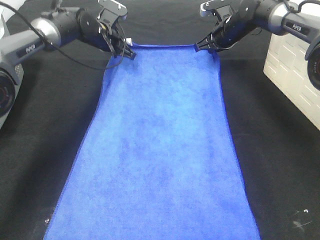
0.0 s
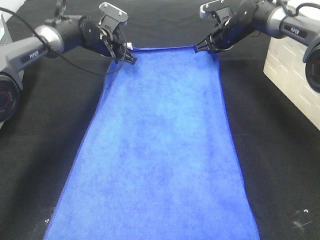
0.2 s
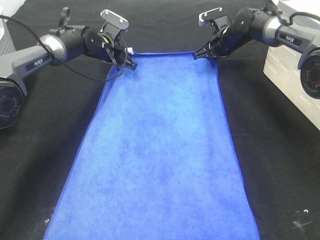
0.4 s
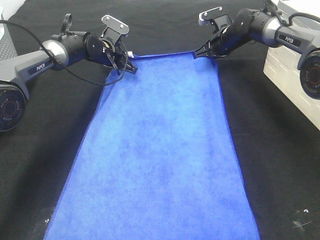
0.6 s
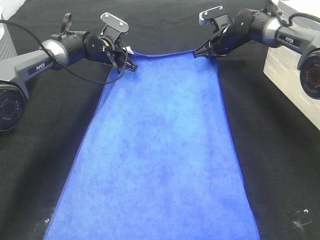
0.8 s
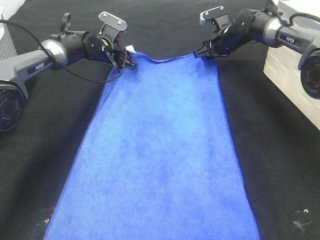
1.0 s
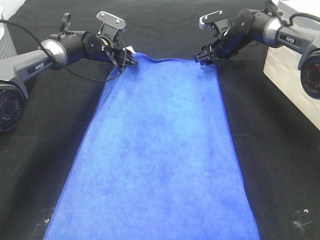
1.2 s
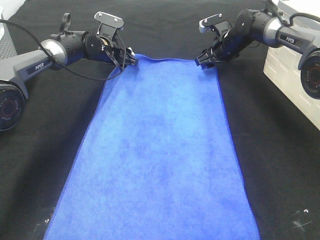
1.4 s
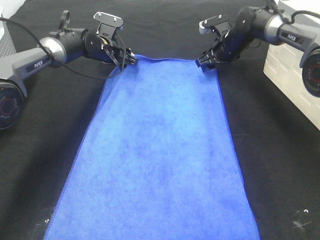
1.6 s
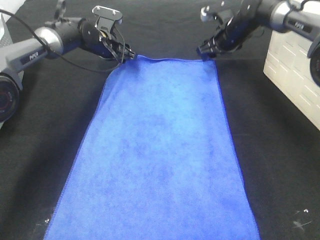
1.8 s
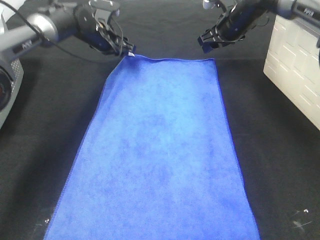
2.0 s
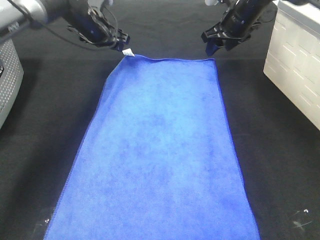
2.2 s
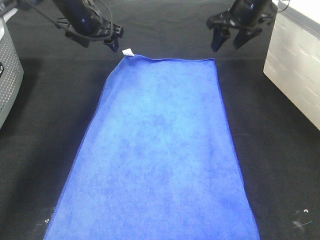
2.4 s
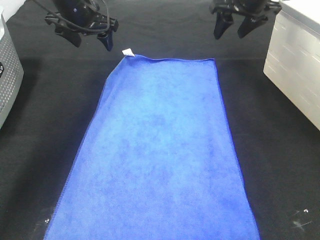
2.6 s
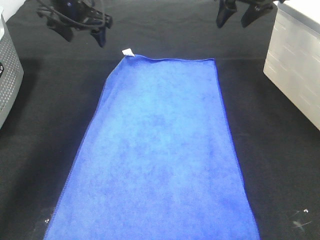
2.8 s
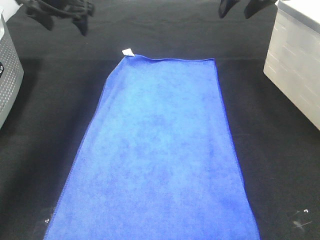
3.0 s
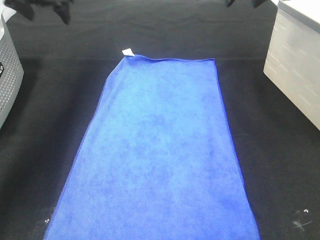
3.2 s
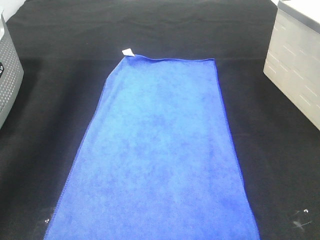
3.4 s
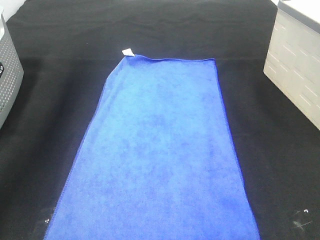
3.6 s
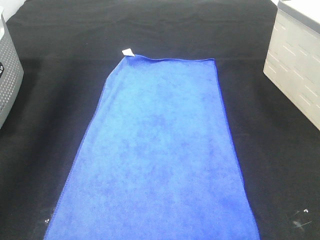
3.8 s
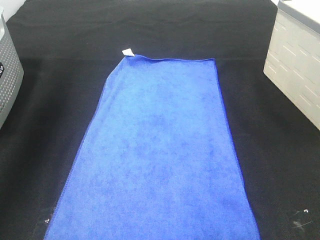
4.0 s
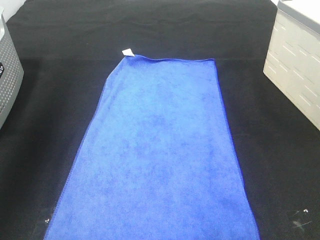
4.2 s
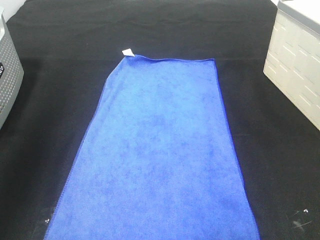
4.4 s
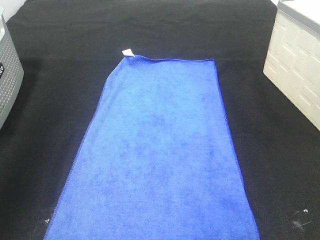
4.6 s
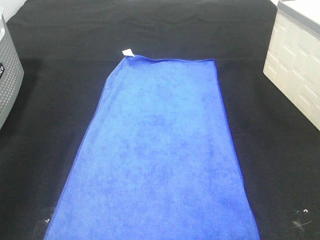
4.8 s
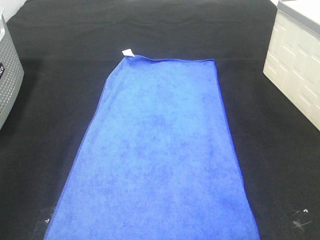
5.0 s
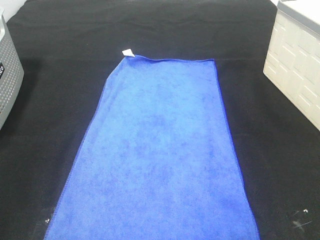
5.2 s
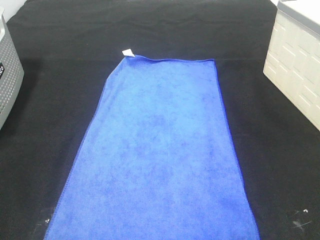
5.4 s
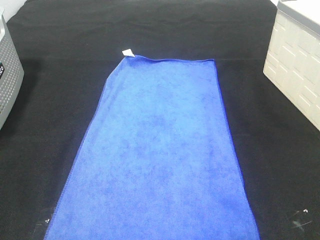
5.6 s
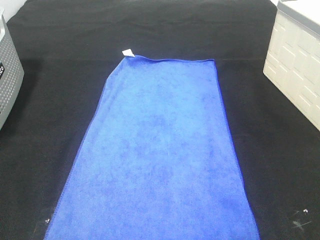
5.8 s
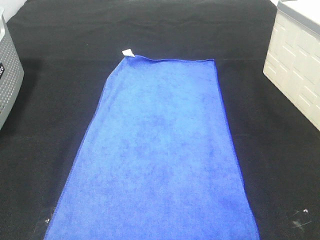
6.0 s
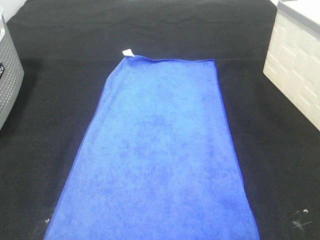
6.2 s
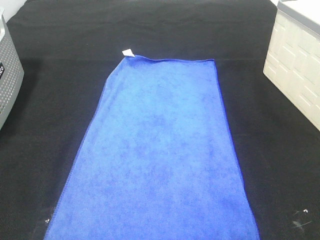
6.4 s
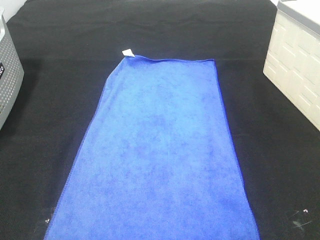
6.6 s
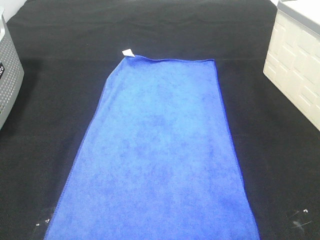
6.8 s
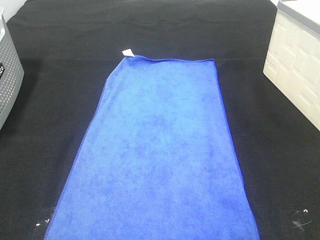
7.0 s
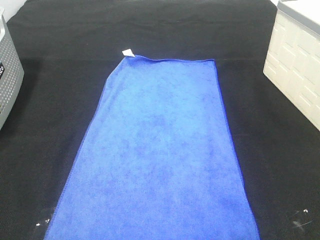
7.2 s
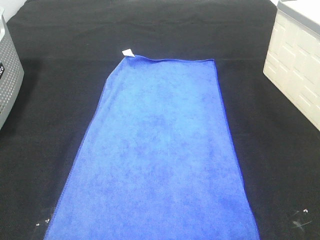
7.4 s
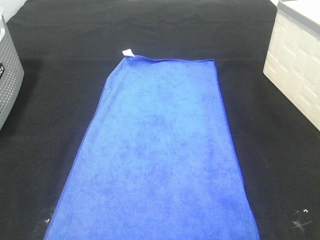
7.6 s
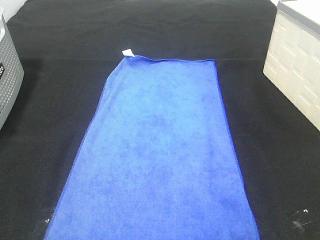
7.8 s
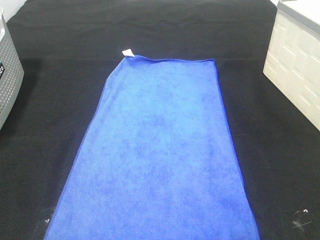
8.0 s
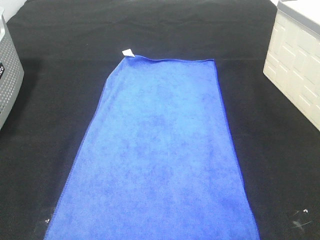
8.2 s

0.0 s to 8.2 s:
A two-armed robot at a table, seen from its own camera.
Task of the whole recording: Remove the towel and place it.
0.0 to 1.6 s: The right gripper opens, while the left gripper opens up.
1.6 to 3.2 s: The left gripper goes some 25 cm upward and to the left; the right gripper goes approximately 25 cm upward and backward.
3.2 to 5.0 s: Both grippers travel together backward, about 50 cm.
6.6 to 8.2 s: Both grippers stay about where they are.

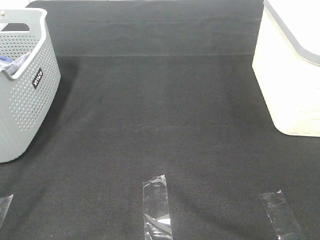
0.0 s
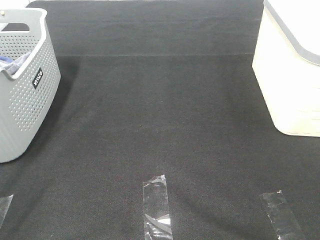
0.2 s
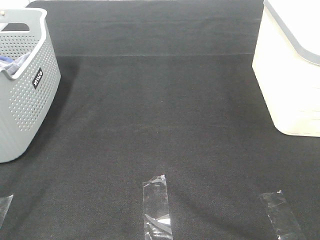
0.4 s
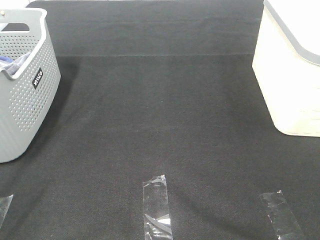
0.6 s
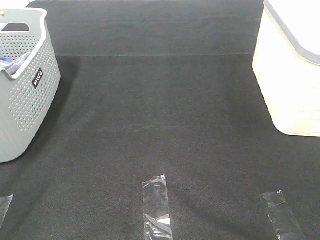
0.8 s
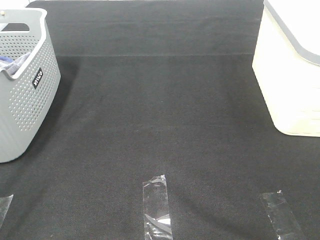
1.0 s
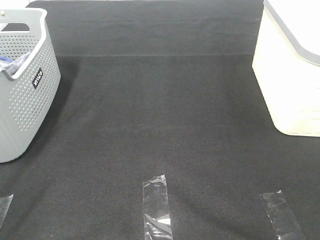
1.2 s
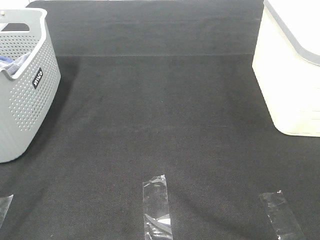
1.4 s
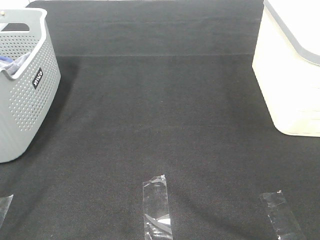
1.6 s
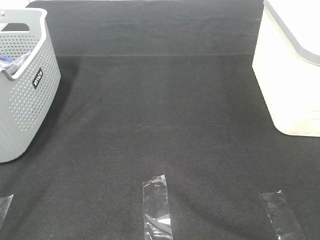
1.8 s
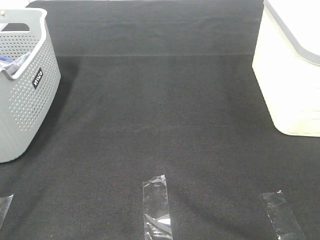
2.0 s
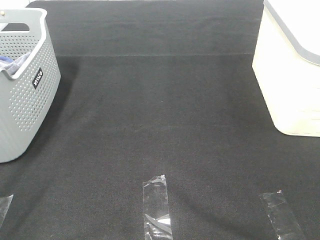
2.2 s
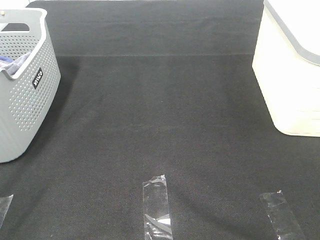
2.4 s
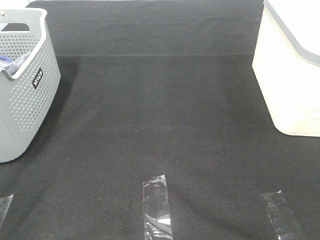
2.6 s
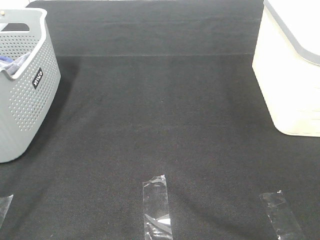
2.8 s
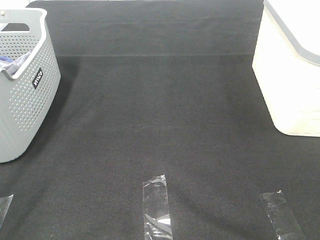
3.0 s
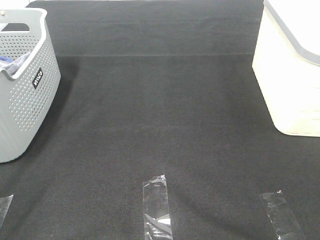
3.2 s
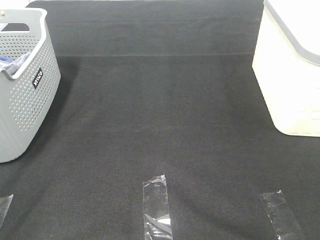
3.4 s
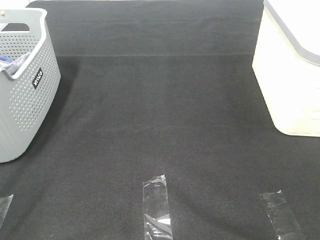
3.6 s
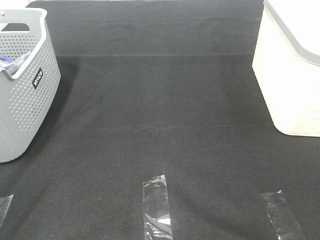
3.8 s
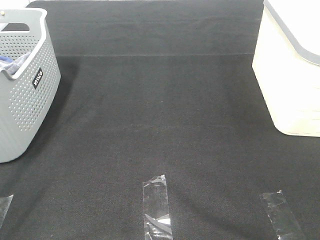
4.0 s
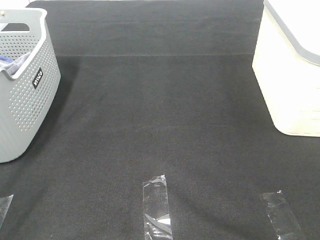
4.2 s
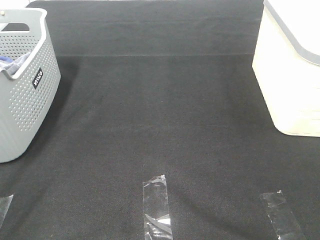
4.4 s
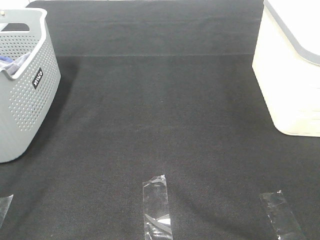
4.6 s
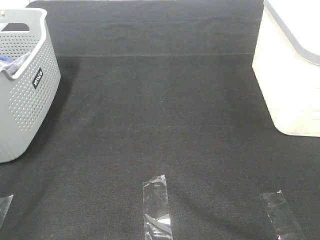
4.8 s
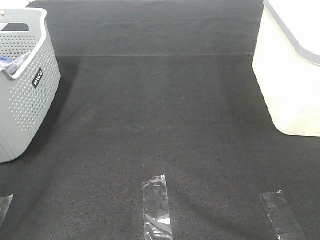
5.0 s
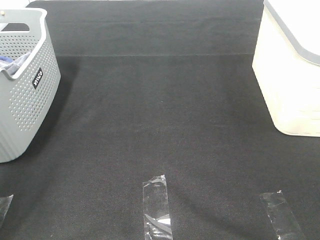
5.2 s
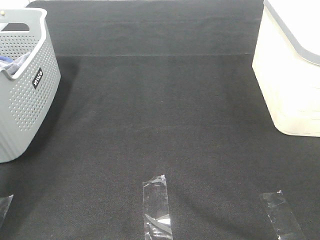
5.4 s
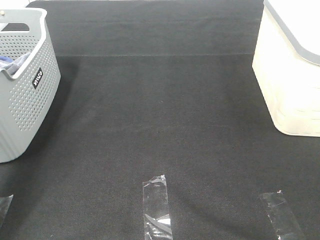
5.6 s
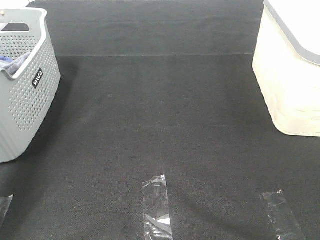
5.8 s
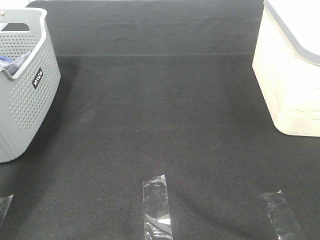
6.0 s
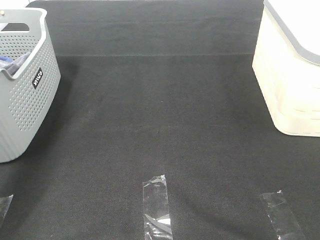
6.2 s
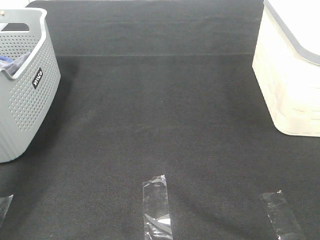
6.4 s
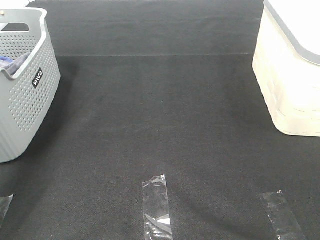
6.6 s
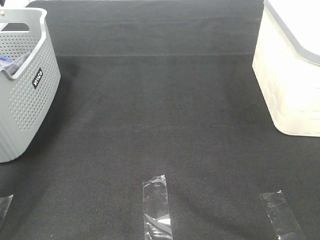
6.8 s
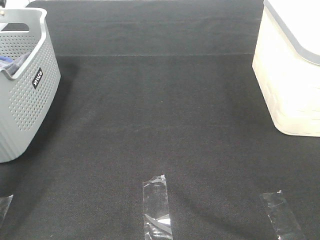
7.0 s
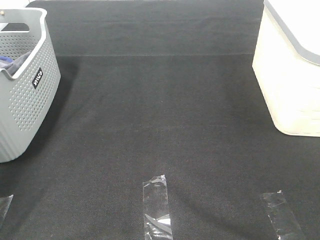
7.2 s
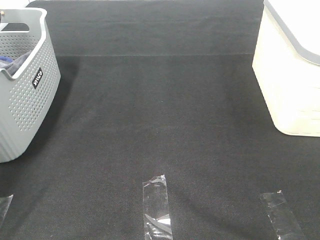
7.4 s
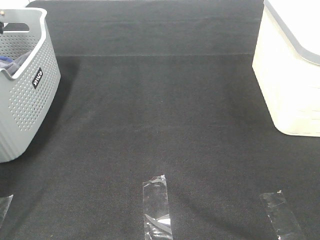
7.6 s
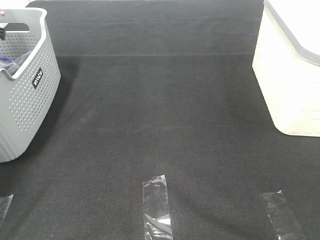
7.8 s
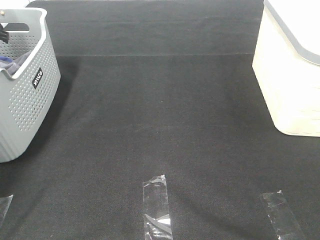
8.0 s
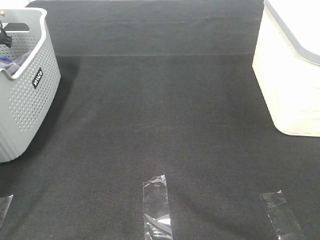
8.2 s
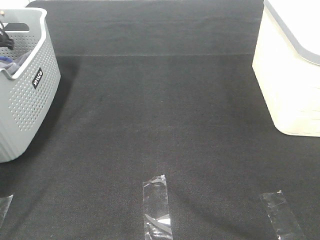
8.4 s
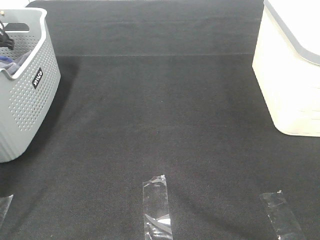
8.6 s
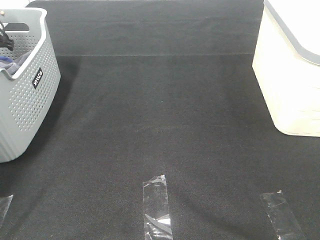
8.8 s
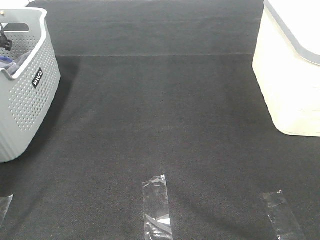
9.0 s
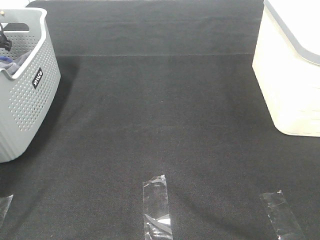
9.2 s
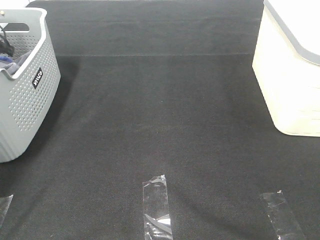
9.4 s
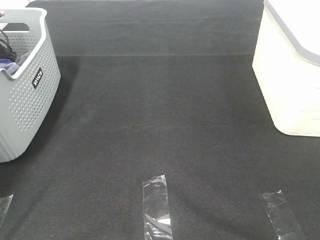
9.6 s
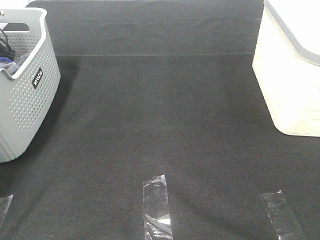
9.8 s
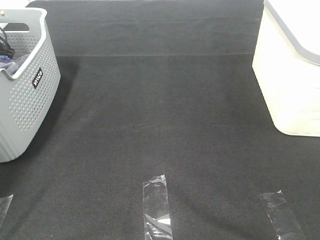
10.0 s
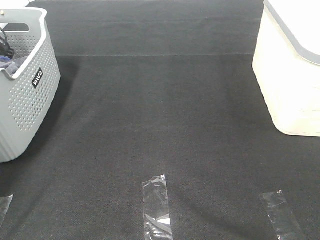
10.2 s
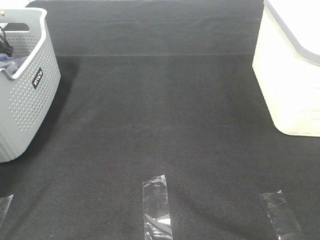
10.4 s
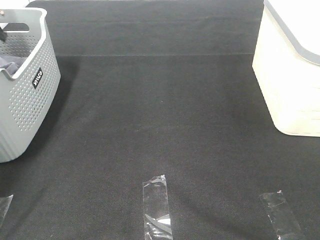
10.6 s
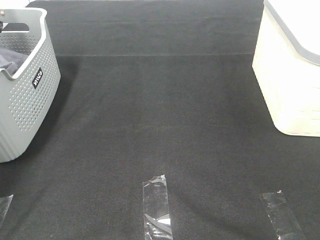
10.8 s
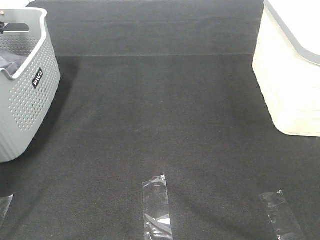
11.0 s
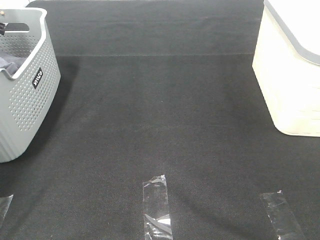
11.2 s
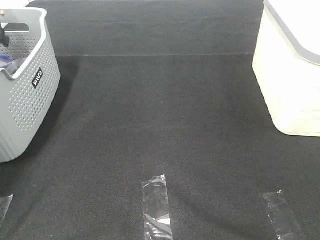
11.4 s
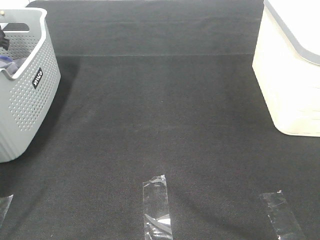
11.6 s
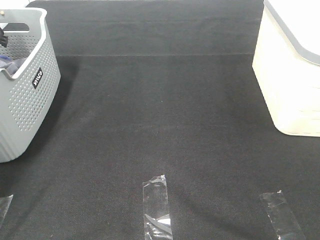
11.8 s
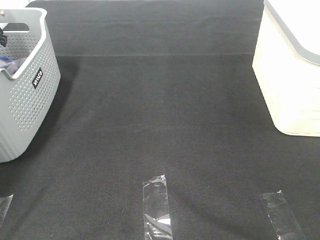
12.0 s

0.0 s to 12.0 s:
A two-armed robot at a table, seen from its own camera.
Task of the whole recording: Remove the towel and place it.
0.0 to 4.4 s: Both grippers stay about where they are.
4.4 to 6.0 s: The left gripper heads forward, covering about 35 cm.
6.0 to 7.6 s: The left gripper goes approximately 20 cm forward, downward and to the left.

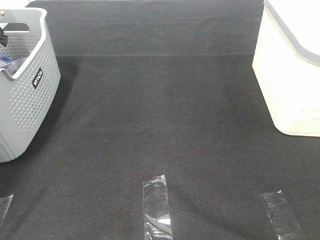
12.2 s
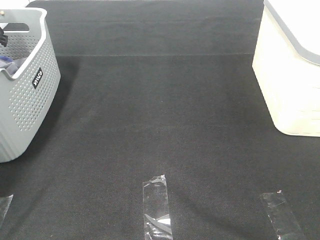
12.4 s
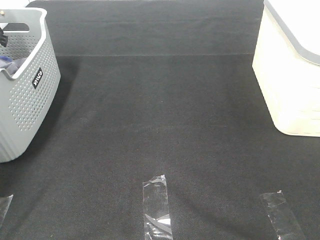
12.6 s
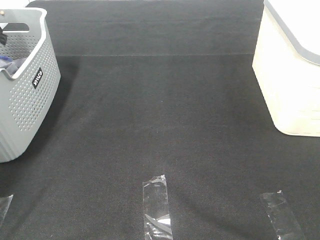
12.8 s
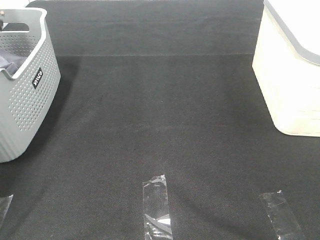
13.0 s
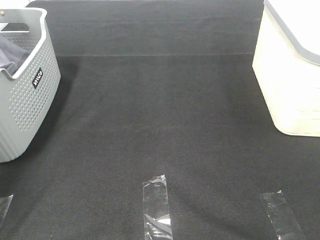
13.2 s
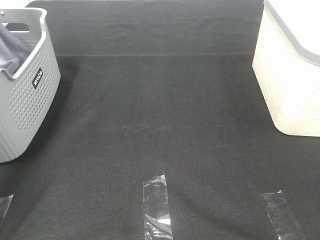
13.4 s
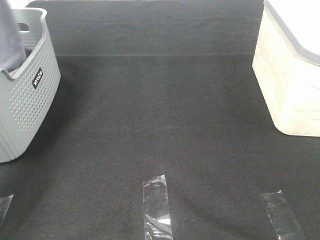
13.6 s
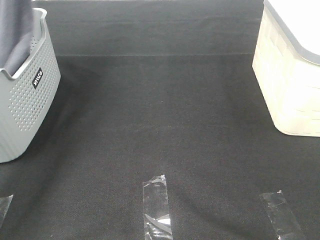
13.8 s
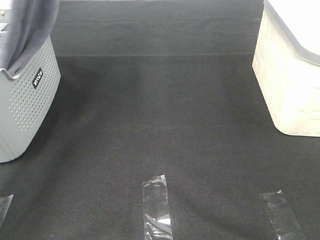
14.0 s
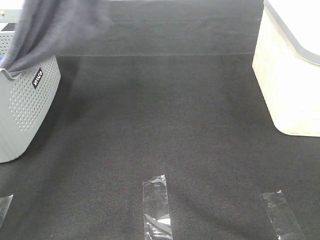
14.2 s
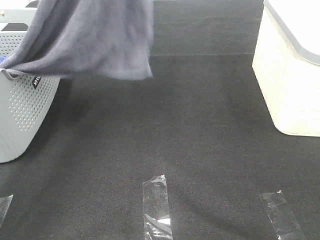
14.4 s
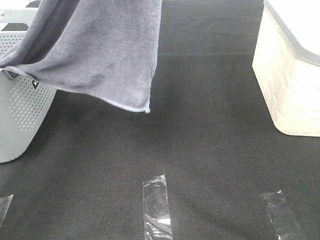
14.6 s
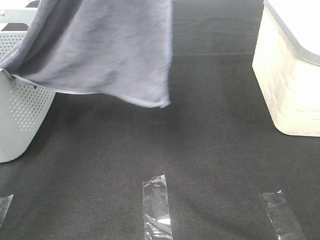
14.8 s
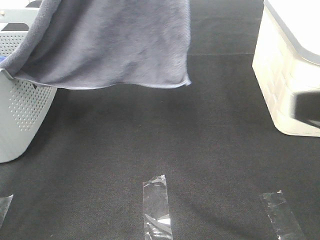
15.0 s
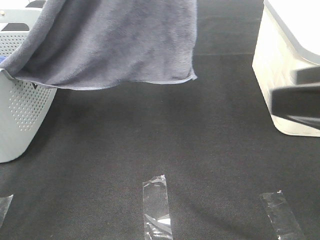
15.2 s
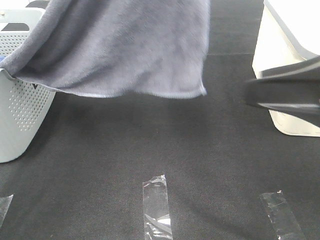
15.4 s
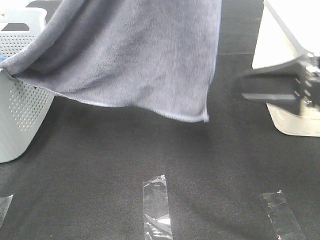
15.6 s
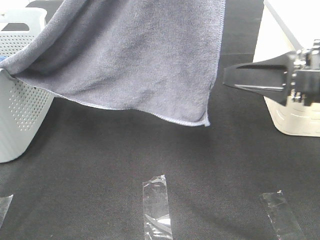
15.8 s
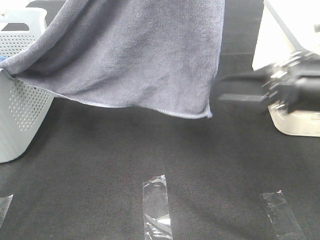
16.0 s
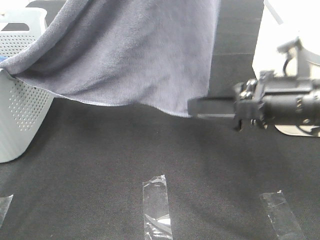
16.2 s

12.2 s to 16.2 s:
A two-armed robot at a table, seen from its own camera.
Task of the whole recording: Remove the towel and place it.
12.2 to 13.6 s: The left gripper is displaced upward and to the right by roughly 25 cm, and closes.
13.6 to 14.8 s: The left gripper goes some 20 cm to the right, backward and upward. Meanwhile the right gripper moves forward, approximately 5 cm.
14.8 to 16.2 s: The right gripper heads forward, downward and to the left, covering approximately 20 cm, while the left gripper heads to the right, covering approximately 5 cm.
